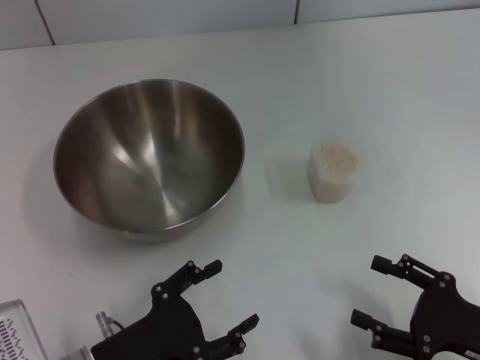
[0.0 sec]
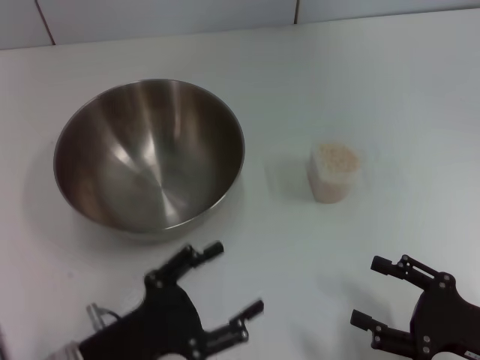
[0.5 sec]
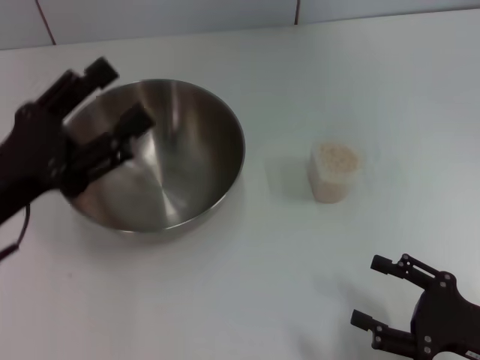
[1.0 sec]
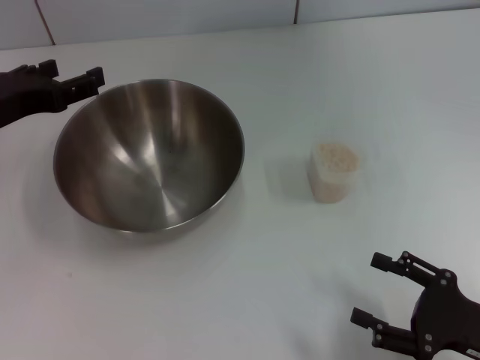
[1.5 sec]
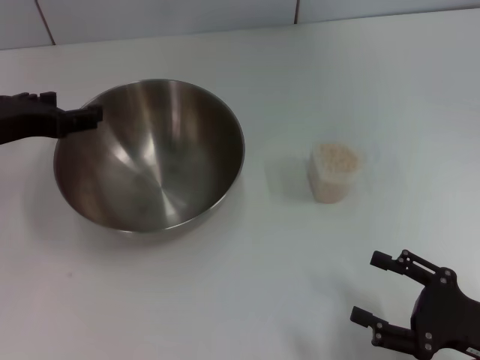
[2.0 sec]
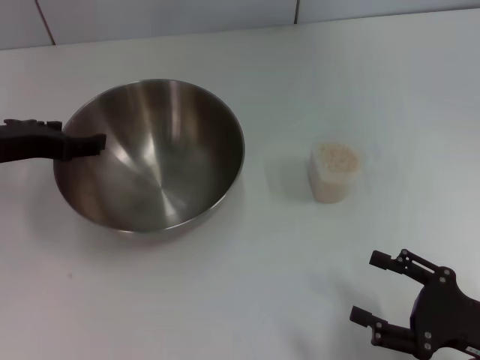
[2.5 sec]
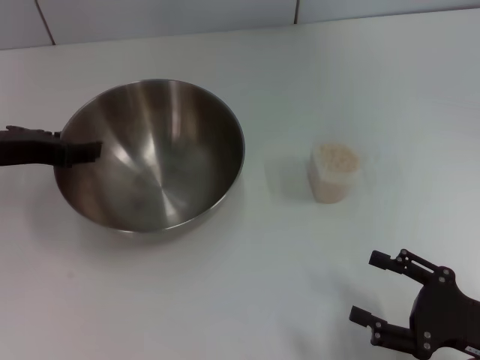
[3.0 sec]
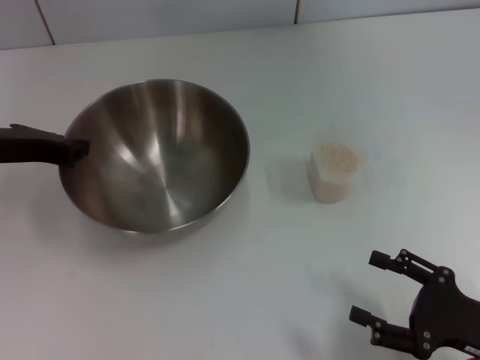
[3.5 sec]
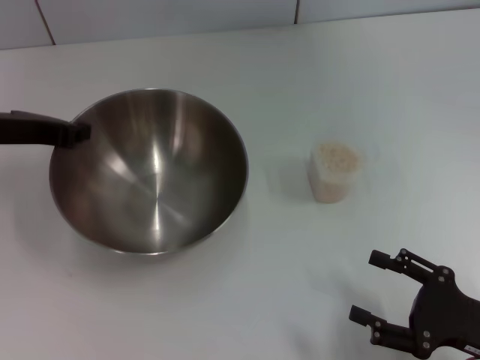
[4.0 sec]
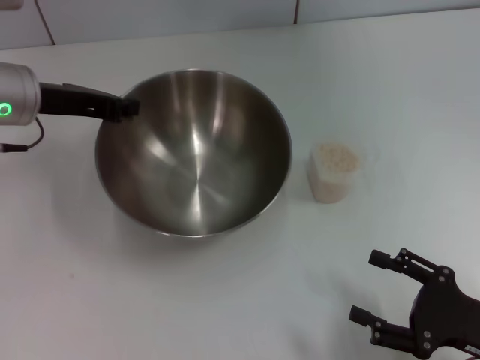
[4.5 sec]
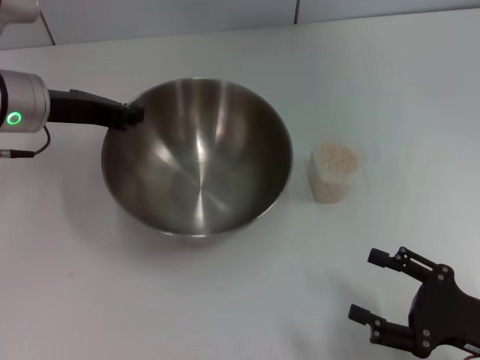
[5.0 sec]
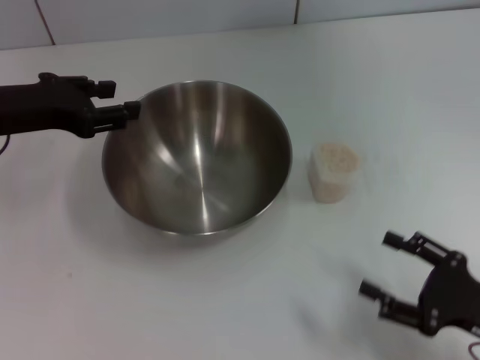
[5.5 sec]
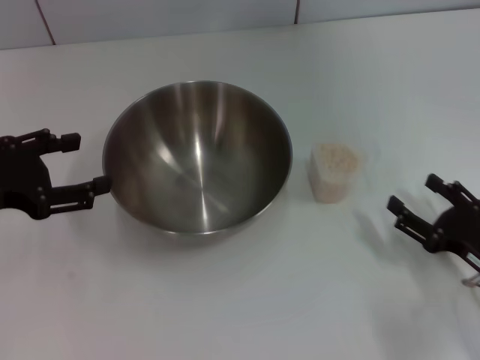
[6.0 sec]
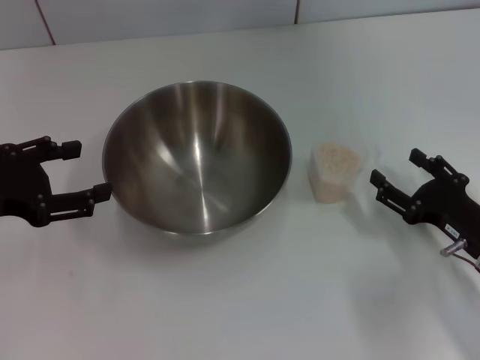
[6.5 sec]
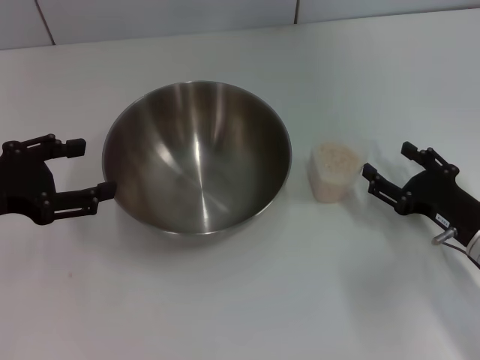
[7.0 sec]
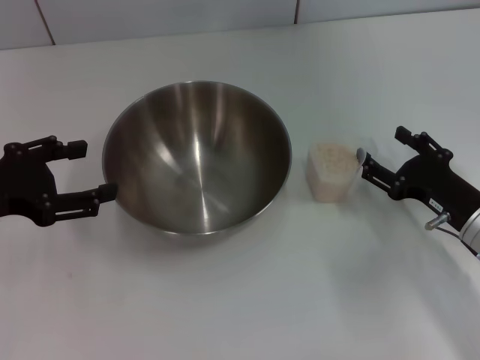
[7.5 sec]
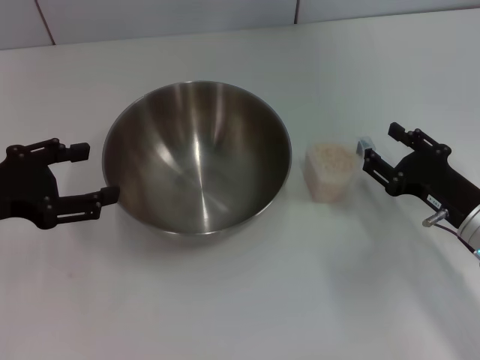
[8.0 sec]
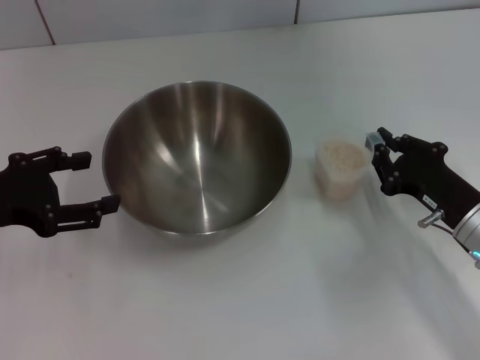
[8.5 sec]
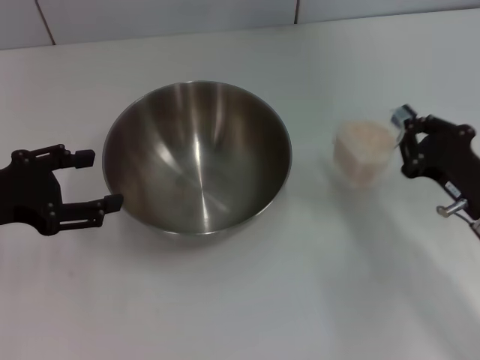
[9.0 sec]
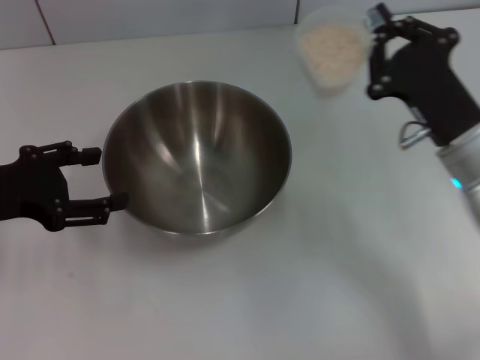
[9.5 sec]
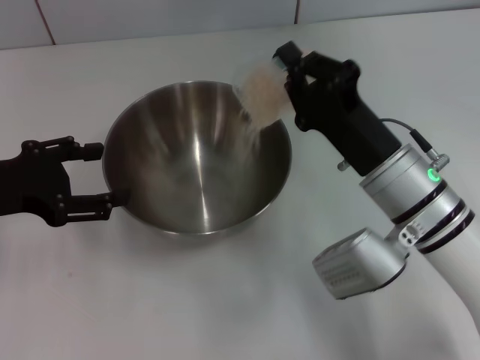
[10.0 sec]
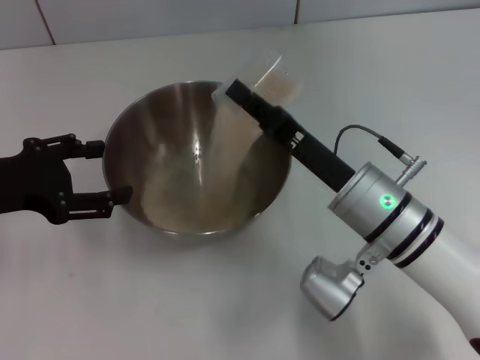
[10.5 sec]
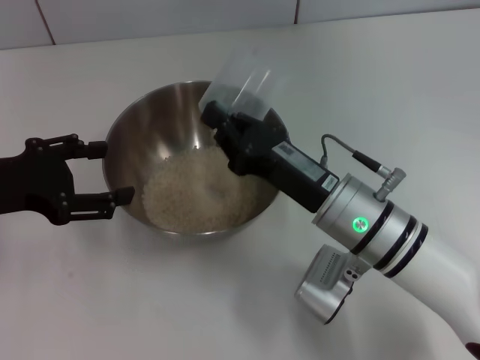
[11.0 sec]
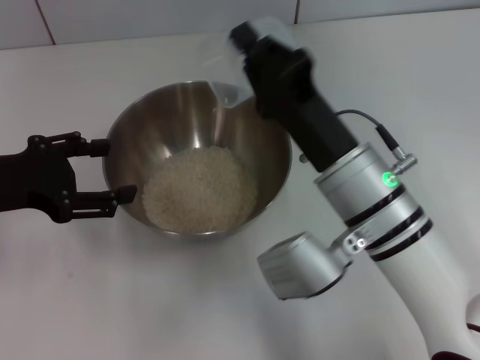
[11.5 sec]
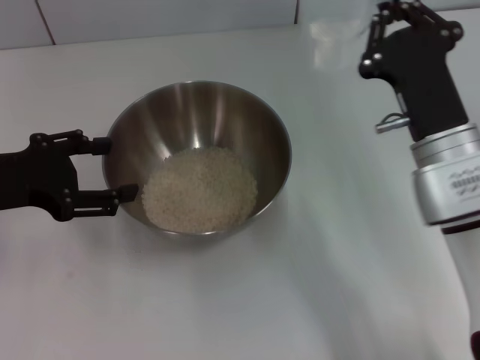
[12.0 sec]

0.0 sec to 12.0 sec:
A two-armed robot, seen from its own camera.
Task of the whole recording: Place the bowl in the middle of the table with one hand and pour the rice from the grain cup into it with the other hand.
Step, 0.0 sec to 3.5 sec: Pick up the bowl with the left gripper.
Step, 4.0 sec to 5.5 sec: Place the bowl in the center of view with the left gripper.
Step, 6.0 sec to 9.0 sec: Pick up the cup with rice in it with the right gripper.
Step, 9.5 sec to 11.5 sec: Pour the rice from the cup into the bowl with the right gripper.
0.0 sec to 2.0 sec: The left gripper goes about 25 cm forward and upward.
2.0 sec to 4.0 sec: The left gripper closes its fingers.
4.0 sec to 6.0 sec: The left gripper travels backward by approximately 10 cm, and opens. Meanwhile the right gripper shifts some 5 cm forward.
6.0 sec to 8.0 sec: The right gripper is displaced forward by roughly 5 cm.
8.0 sec to 10.0 sec: The right gripper is displaced to the left and upward by roughly 15 cm, and closes.
10.0 sec to 12.0 sec: The right gripper goes to the left and returns, roughly 5 cm each way.

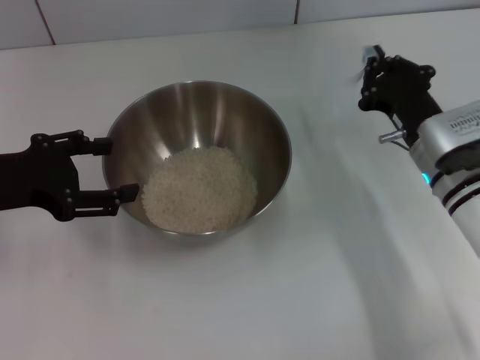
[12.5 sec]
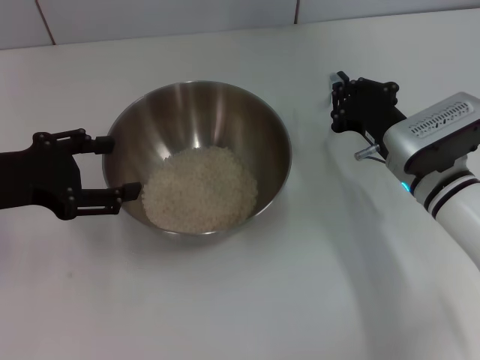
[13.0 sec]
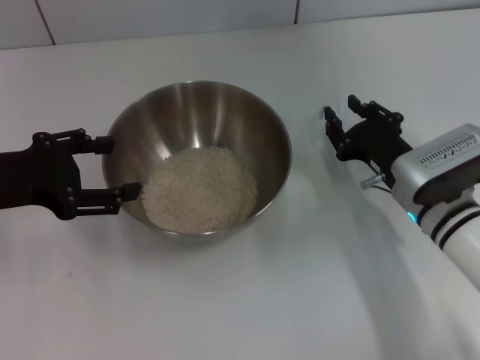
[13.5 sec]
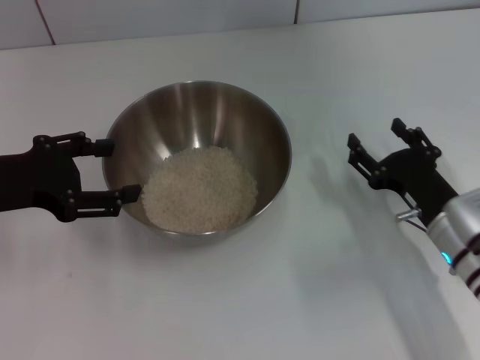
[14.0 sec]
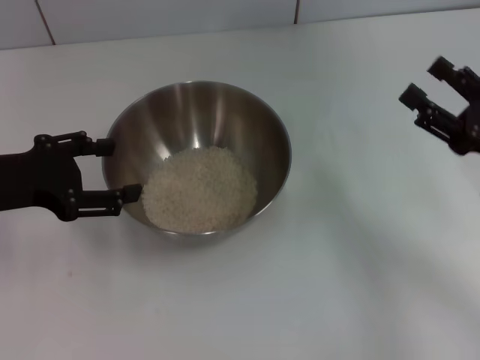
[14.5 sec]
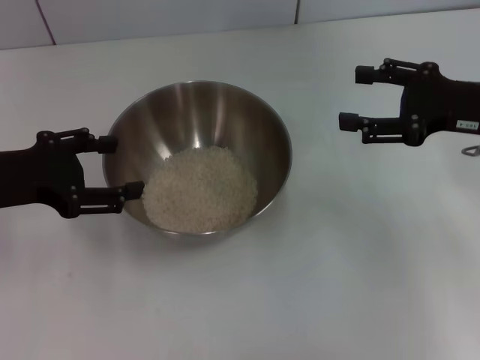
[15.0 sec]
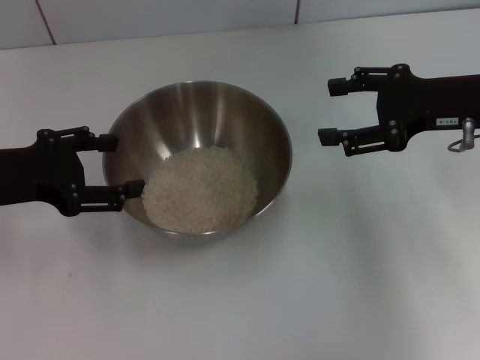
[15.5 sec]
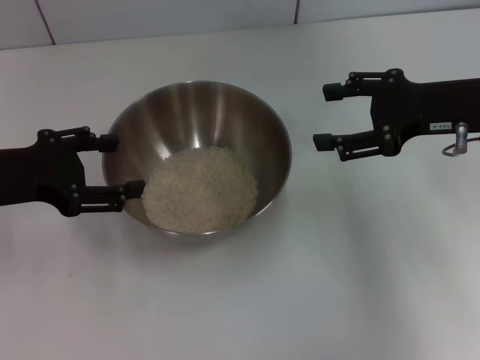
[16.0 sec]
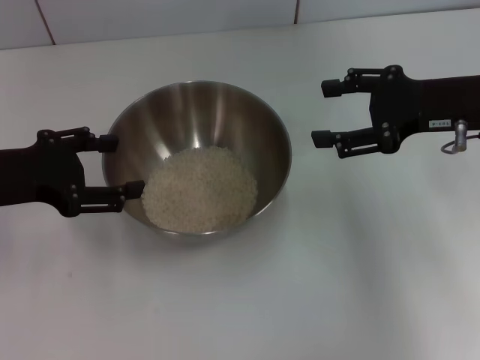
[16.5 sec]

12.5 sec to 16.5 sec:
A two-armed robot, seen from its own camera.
Task of the whole recording: Place the bowl in the middle of the table with one hand and pour the rice from the grain cup into it with the other hand.
Step, 12.5 sec to 14.0 sec: Place the cup on the table with the right gripper.
12.5 sec to 14.5 sec: The right gripper heads to the right and backward, covering some 10 cm, and opens up.
14.5 sec to 16.5 sec: The right gripper goes about 10 cm forward and upward.

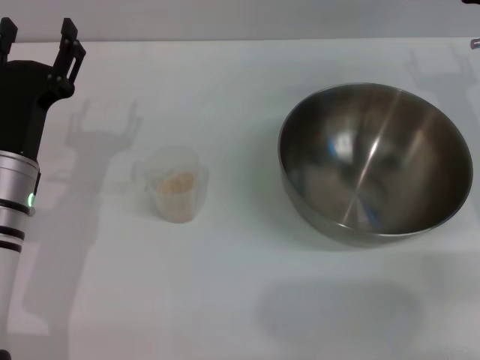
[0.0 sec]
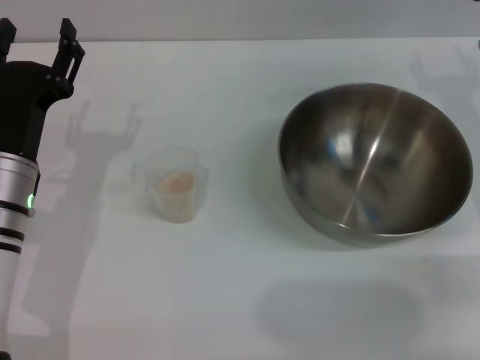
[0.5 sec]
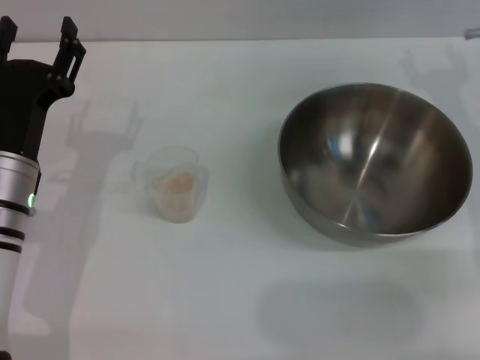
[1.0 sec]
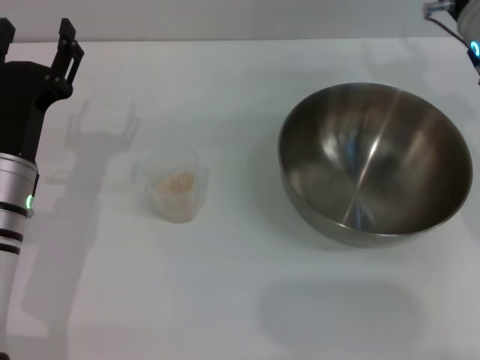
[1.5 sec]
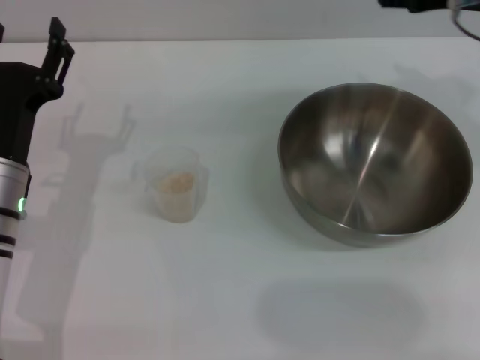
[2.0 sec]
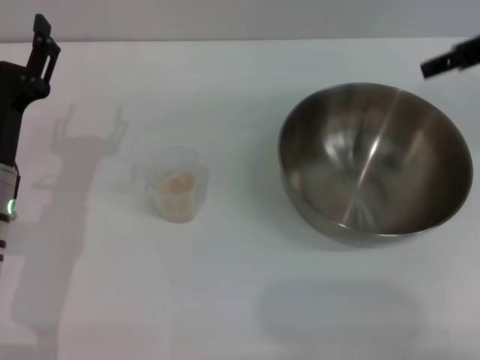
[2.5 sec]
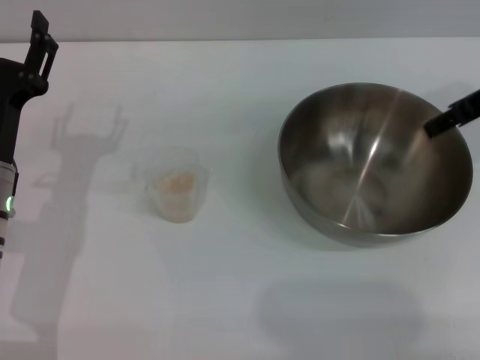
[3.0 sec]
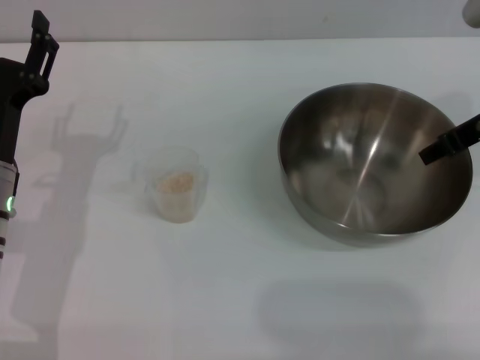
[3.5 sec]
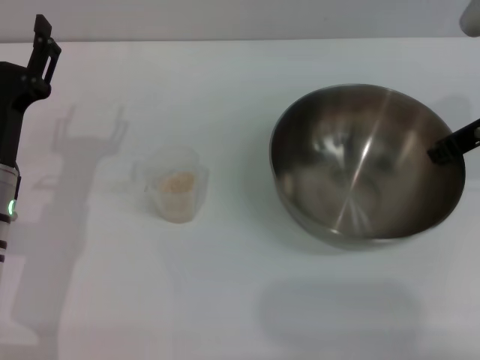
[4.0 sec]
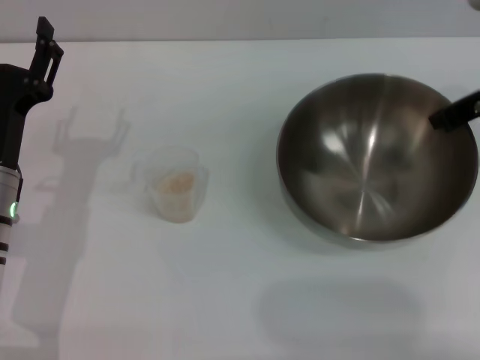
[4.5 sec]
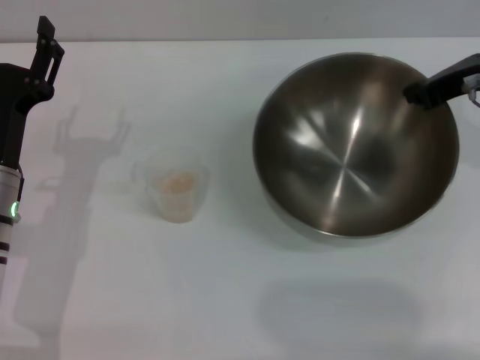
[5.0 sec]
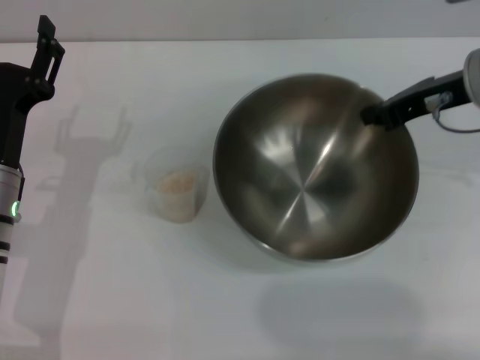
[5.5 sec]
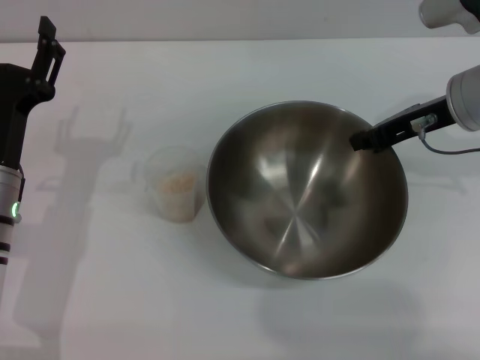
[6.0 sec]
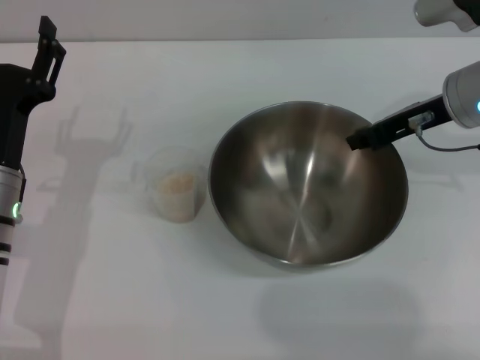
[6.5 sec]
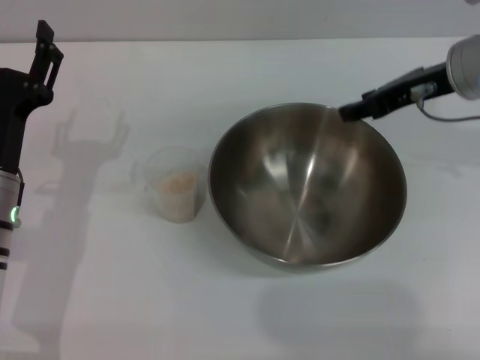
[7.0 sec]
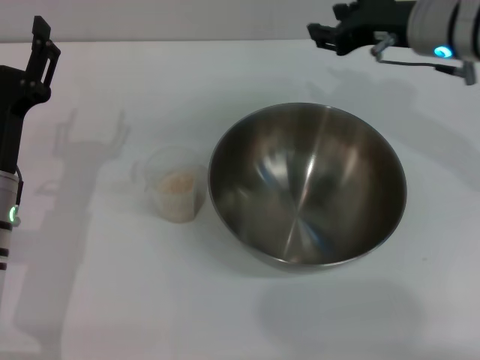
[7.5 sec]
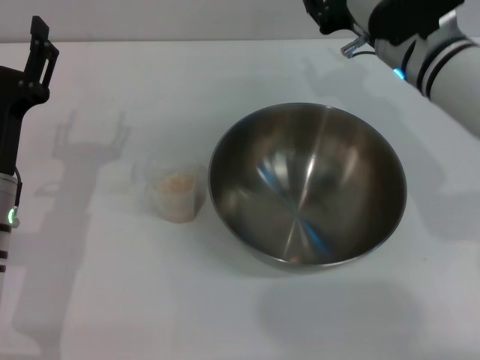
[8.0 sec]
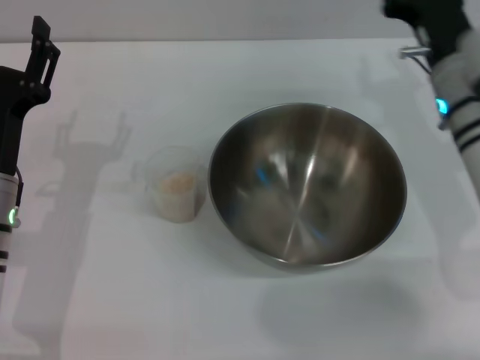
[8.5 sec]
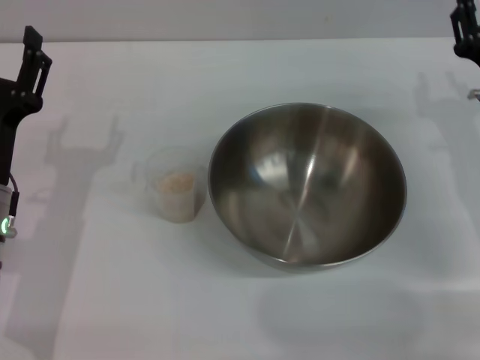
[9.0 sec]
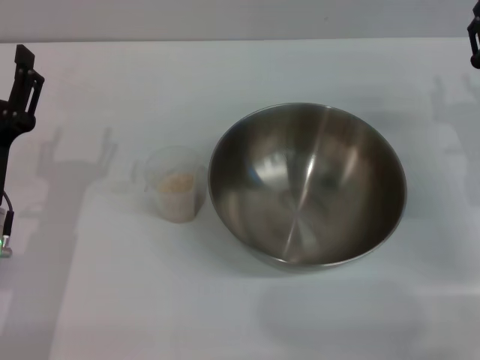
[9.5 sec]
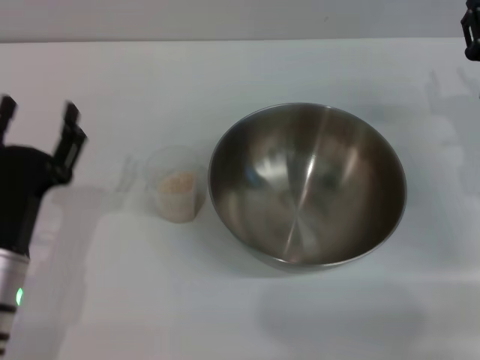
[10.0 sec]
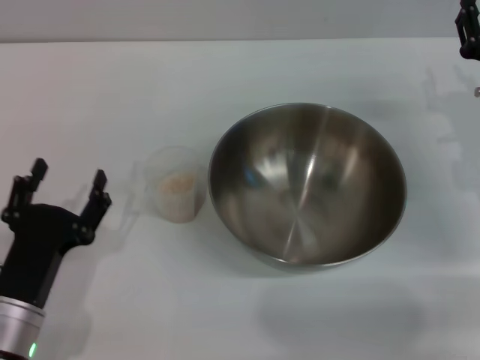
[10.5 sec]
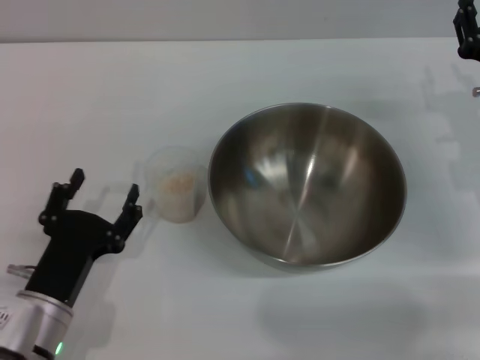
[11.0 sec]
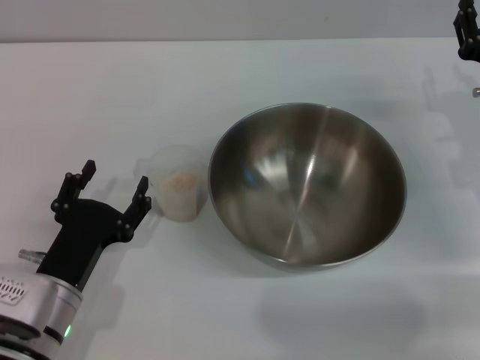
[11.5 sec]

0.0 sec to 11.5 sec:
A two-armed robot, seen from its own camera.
Task of the whole recording: Place the bowl in the middle of the table with one hand and pour the rice from the grain cup into it with the other hand.
Step, 0.0 sec to 5.0 sec: Pick up the bowl with the right gripper.
Step, 5.5 sec to 7.0 sec: Place the bowl in the center of view with the right gripper.
0.0 sec to 2.0 sec: The right gripper heads upward, covering about 15 cm.
2.0 sec to 4.0 sec: The right gripper heads downward, covering roughly 5 cm, and closes its fingers.
4.0 sec to 6.0 sec: The right gripper closes up.
6.0 sec to 7.5 sec: The right gripper changes place by some 5 cm, and opens up.
7.5 sec to 9.5 sec: The right gripper goes roughly 15 cm downward, to the right and backward.
9.5 sec to 11.5 sec: The left gripper goes approximately 5 cm downward.
